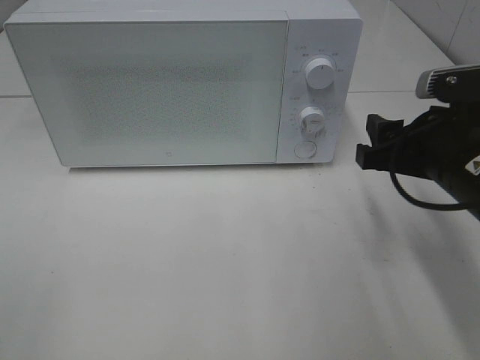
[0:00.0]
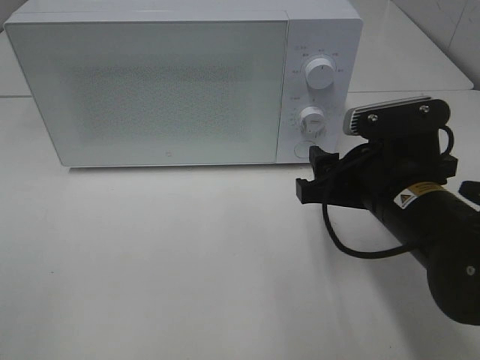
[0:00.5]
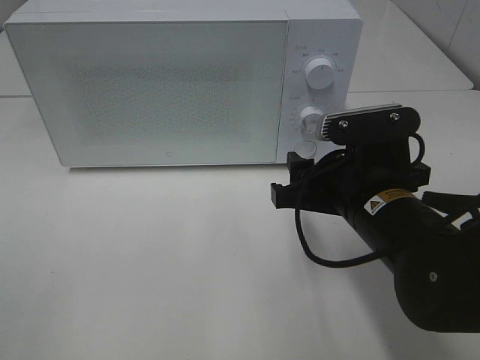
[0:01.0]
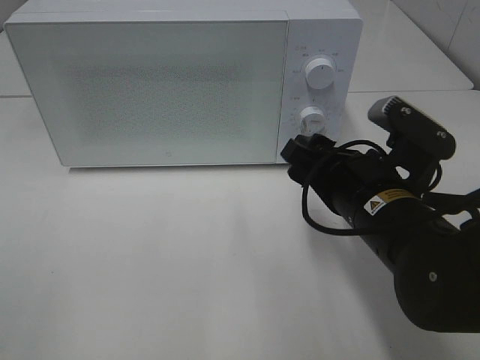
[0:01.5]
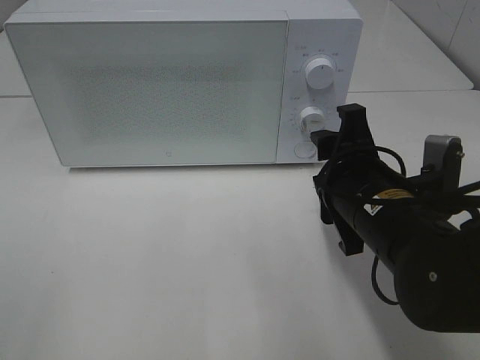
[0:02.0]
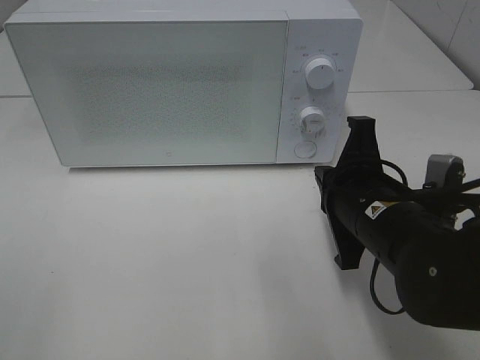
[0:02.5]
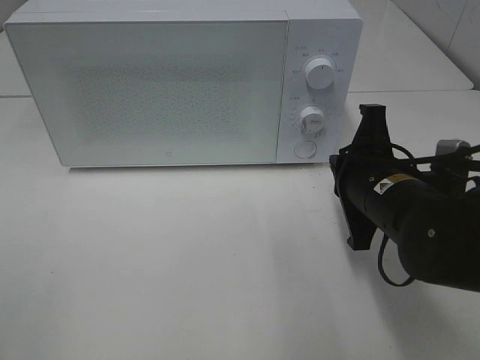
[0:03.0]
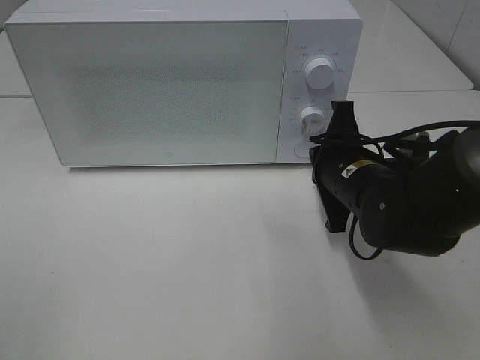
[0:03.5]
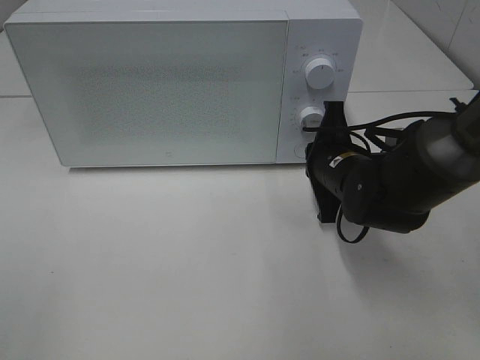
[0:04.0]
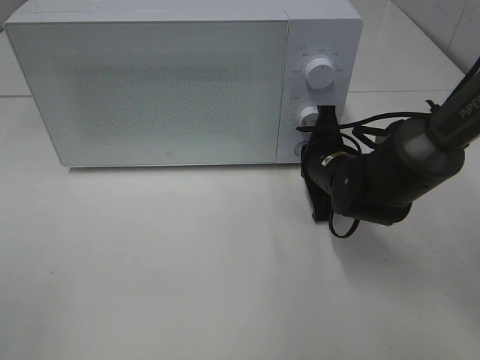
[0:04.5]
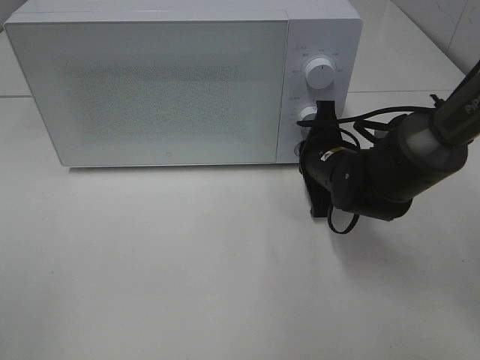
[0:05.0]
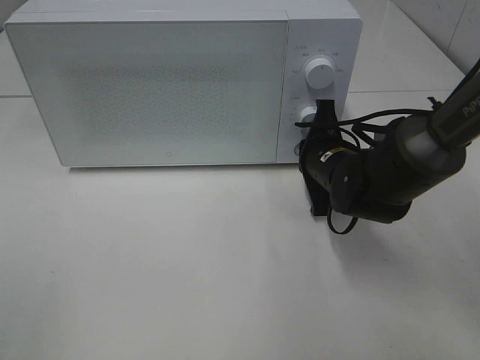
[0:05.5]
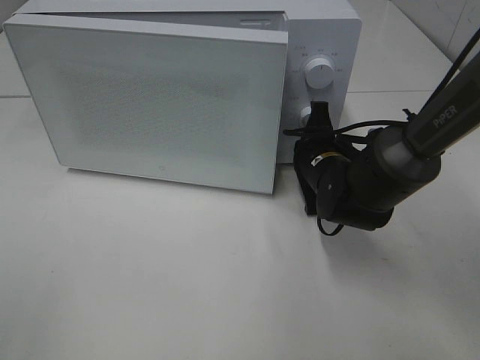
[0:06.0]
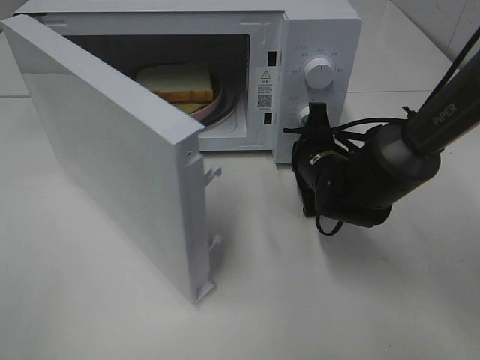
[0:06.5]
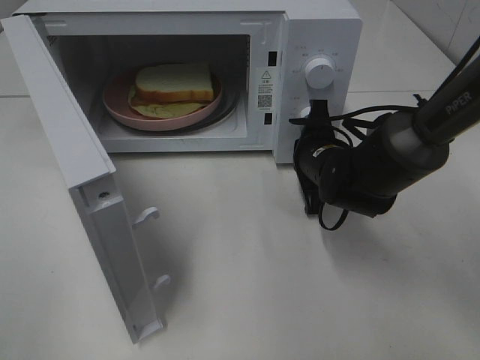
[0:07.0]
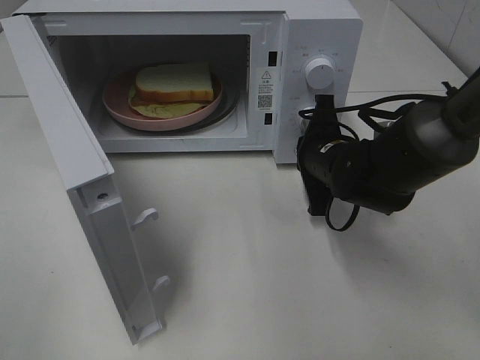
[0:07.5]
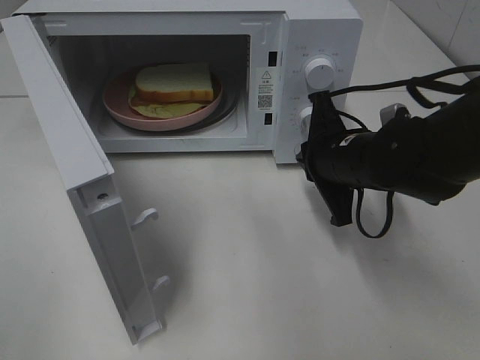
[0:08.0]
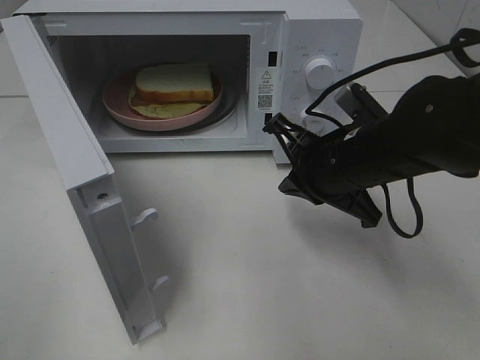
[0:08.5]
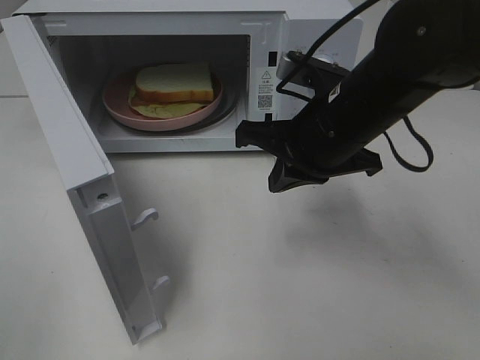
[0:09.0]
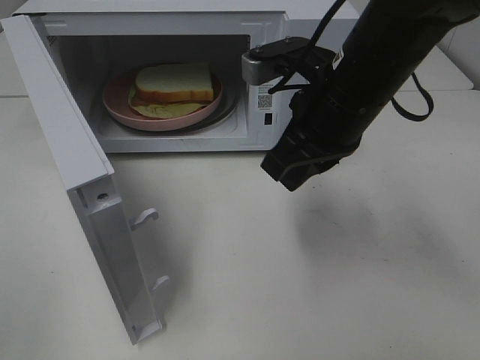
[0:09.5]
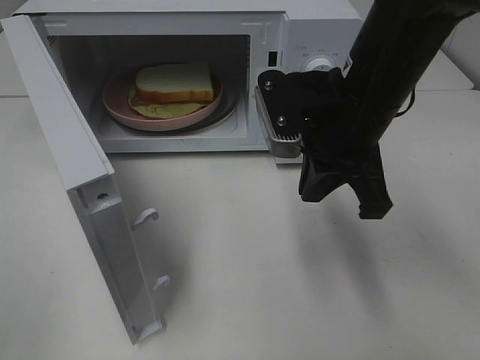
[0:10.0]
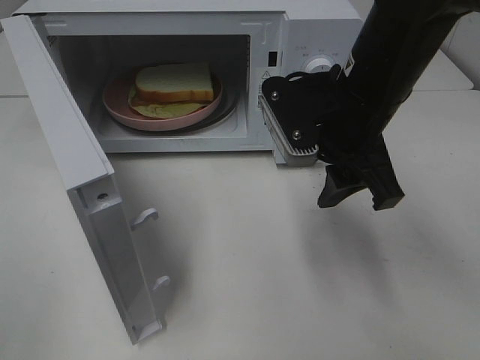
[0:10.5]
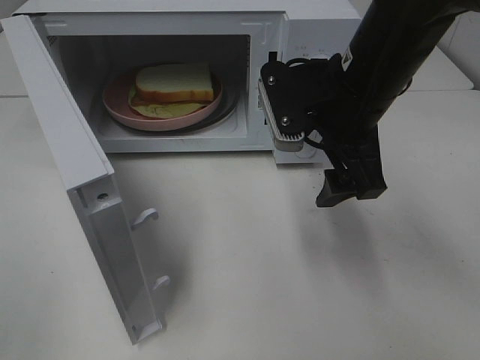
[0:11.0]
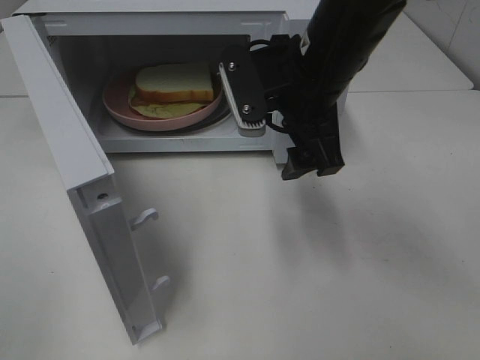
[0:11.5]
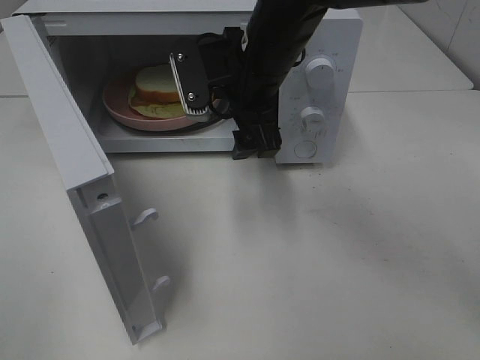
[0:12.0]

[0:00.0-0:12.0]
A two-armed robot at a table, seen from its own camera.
Task of the whole recording: Heat Sandwich.
Step, 0:00.0 to 0:07.5: Right hand: press the switch.
0:00.0 to 0:02.0: The right gripper shifts approximately 10 cm to the left.
0:02.0 to 0:04.0: The right gripper goes some 10 cm forward and downward, and closes.
0:04.0 to 0:06.0: There are only small adjustments of the grippers.
0:06.0 to 0:08.0: The right gripper moves upward and backward, approximately 10 cm.
0:08.0 to 0:10.0: The right gripper heads upward, covering roughly 10 cm.
0:10.0 to 0:12.0: The right gripper goes approximately 10 cm to the left and forward, and opens its fingers.

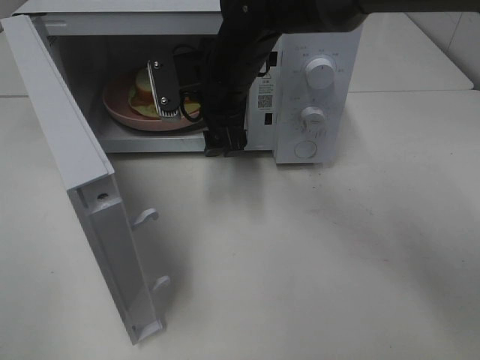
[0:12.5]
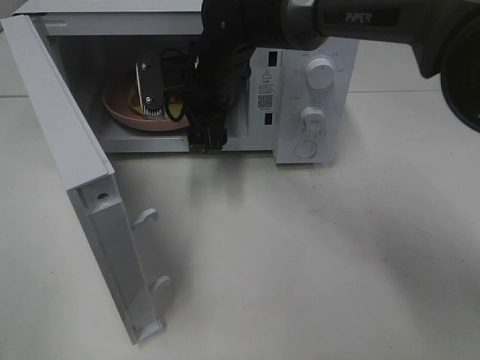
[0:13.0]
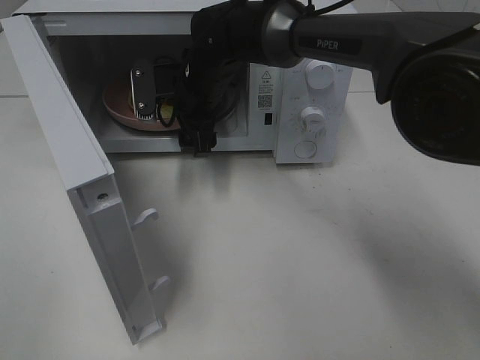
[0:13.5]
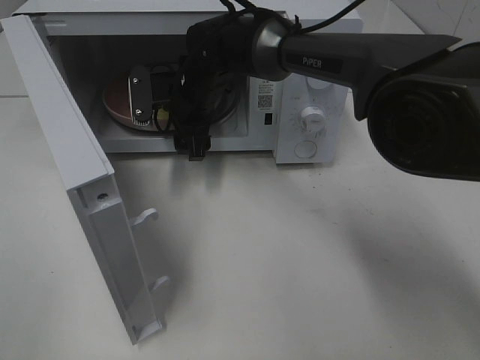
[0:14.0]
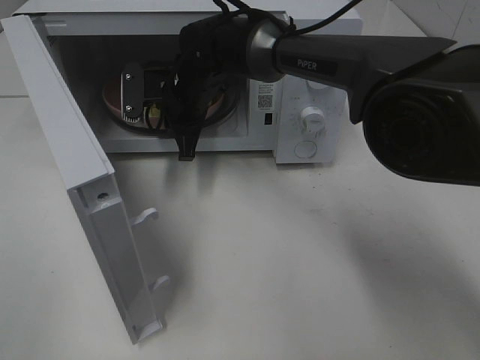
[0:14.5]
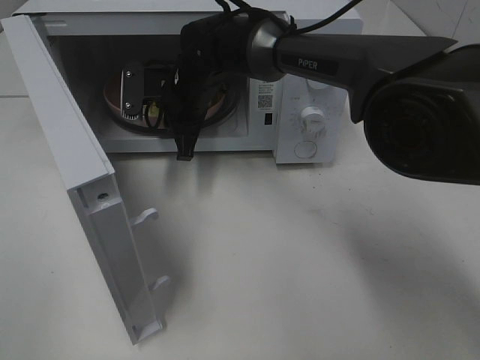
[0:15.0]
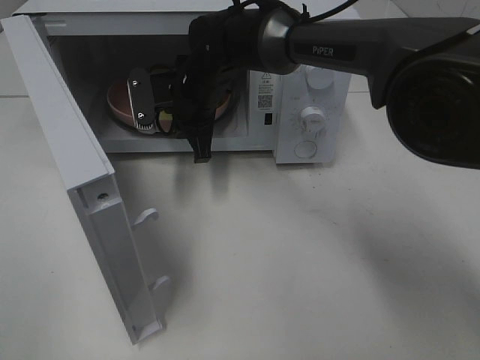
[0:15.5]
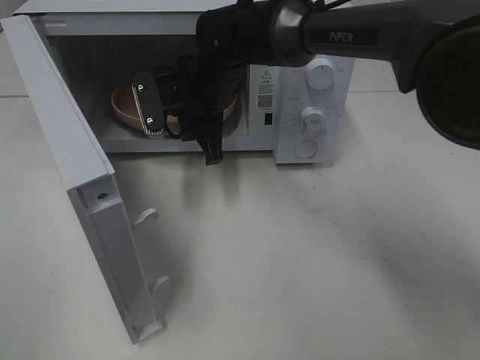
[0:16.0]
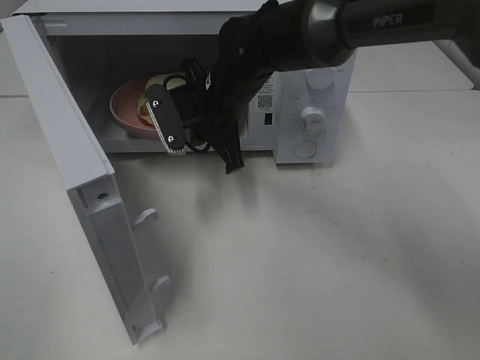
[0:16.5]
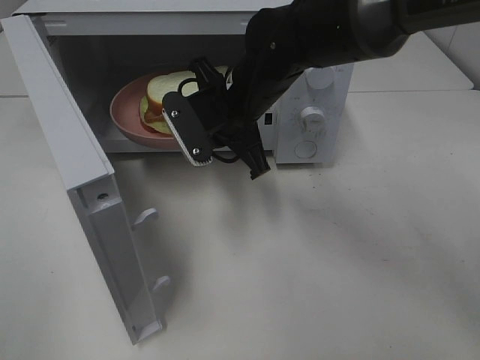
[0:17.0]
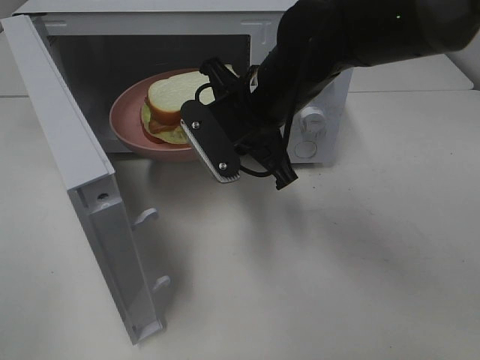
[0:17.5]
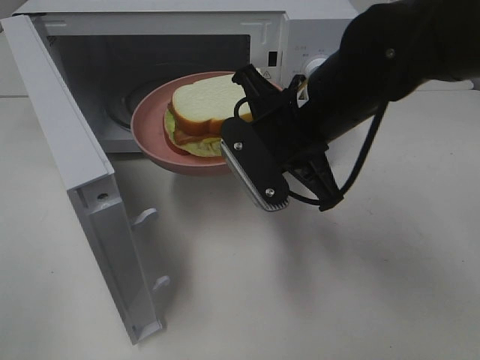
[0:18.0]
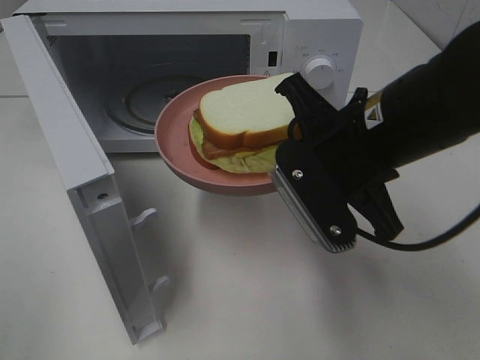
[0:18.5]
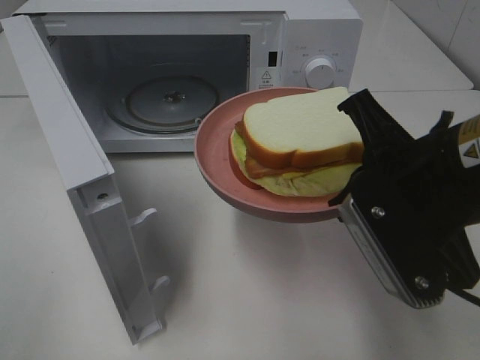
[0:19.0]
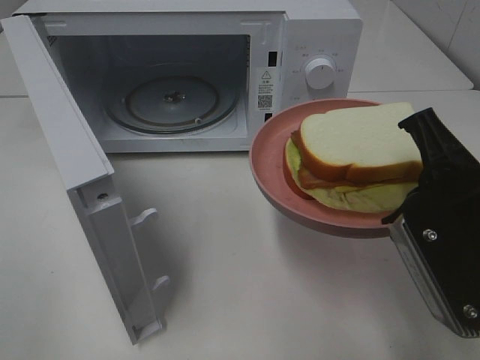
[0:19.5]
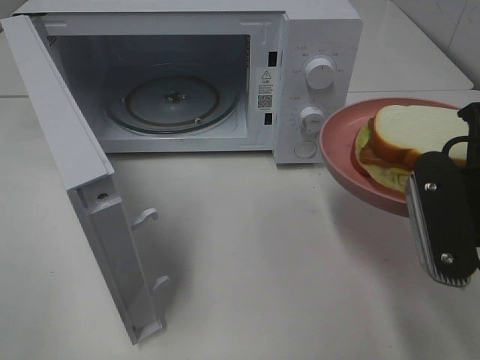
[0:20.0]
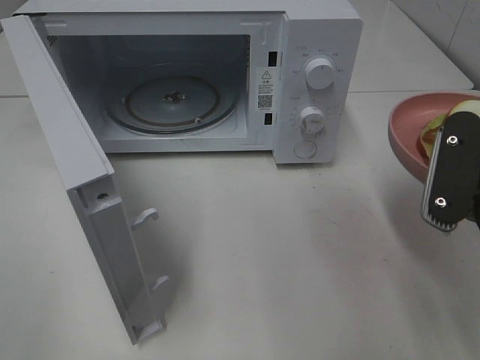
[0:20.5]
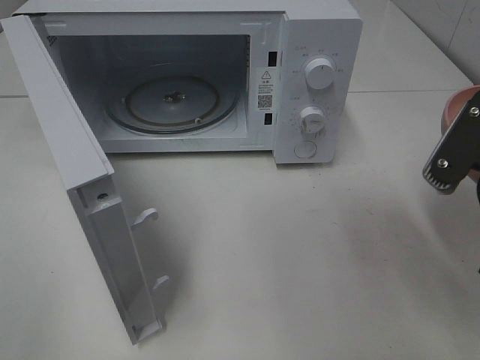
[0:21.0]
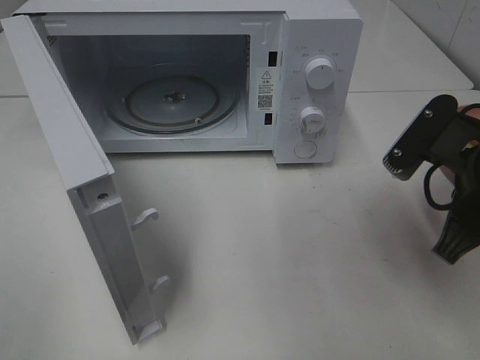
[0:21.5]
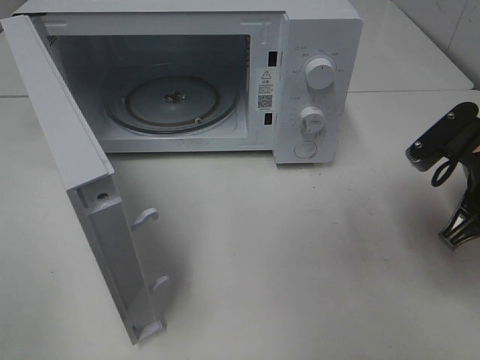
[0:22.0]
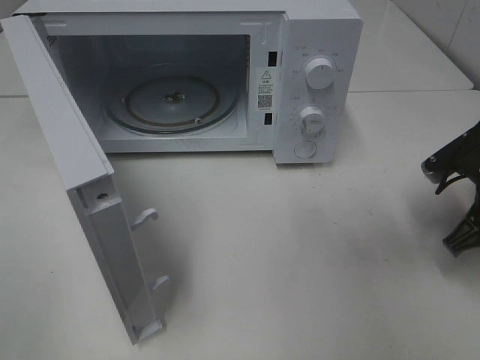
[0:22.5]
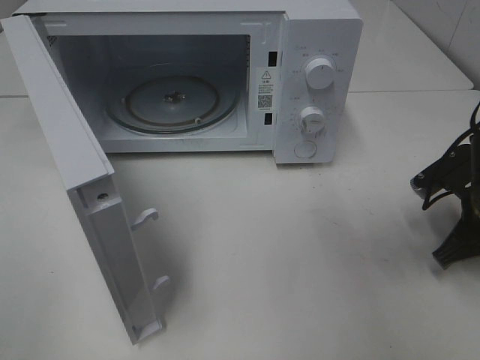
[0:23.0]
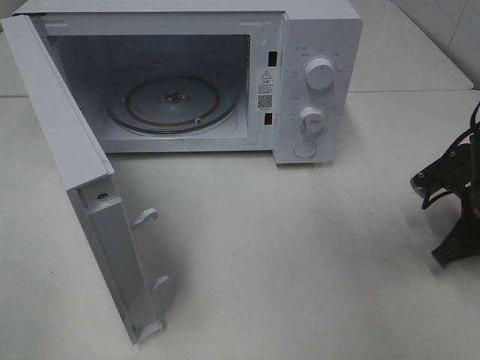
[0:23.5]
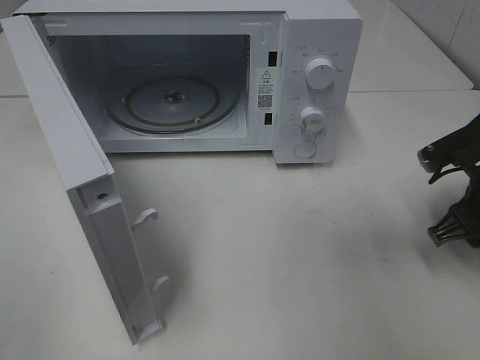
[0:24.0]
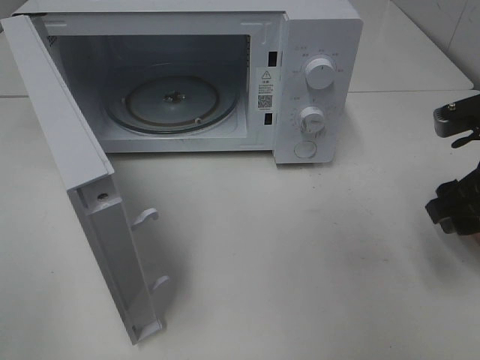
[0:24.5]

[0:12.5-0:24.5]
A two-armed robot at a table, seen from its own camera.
Task of the whole recording: Heat Sandwich.
Step, 0:12.5 to 0:15.0: Right hand: grab the plate with the sandwich.
0:12.5 to 0:14.5: The right gripper goes some 5 cm downward and forward, and closes.
0:14.5 to 0:16.5: The right gripper is displaced backward by some 5 cm.
0:16.5 to 0:18.5: The right gripper travels backward and to the right by some 20 cm.
0:18.5 to 0:20.5: The right gripper goes some 10 cm to the right and backward.
0:20.5 to 0:22.5: The right gripper goes about 15 cm downward, forward and to the right.
0:22.5 to 0:24.5: The right gripper moves upward, roughly 5 cm, and opens its fingers.

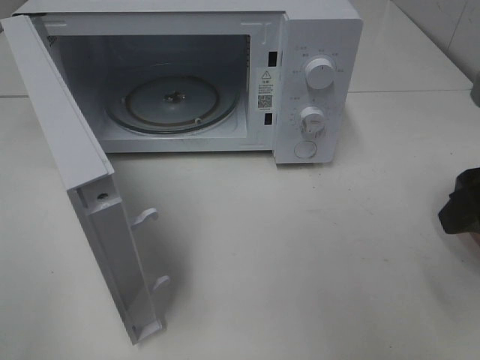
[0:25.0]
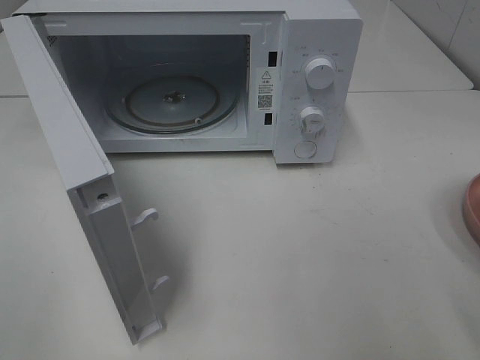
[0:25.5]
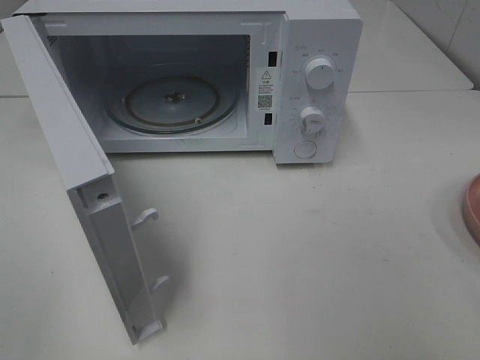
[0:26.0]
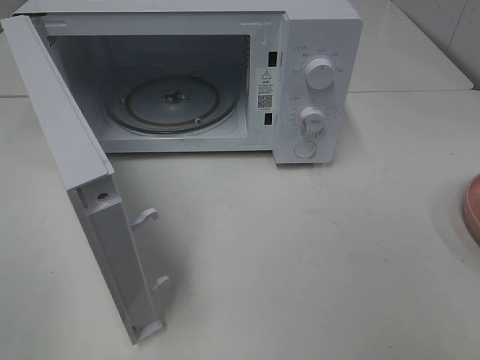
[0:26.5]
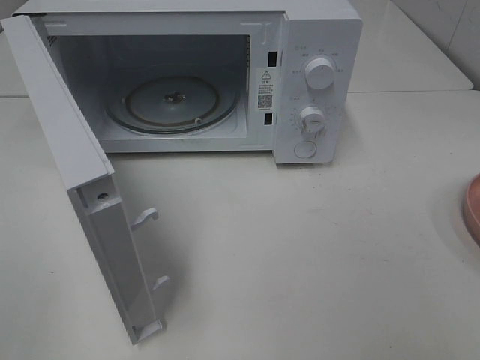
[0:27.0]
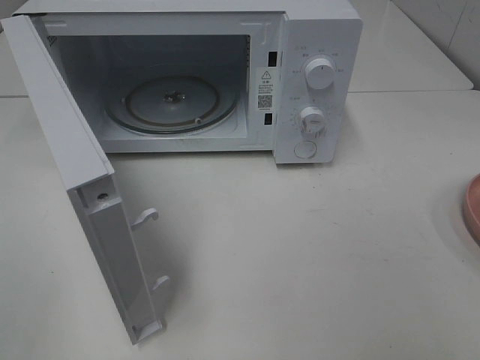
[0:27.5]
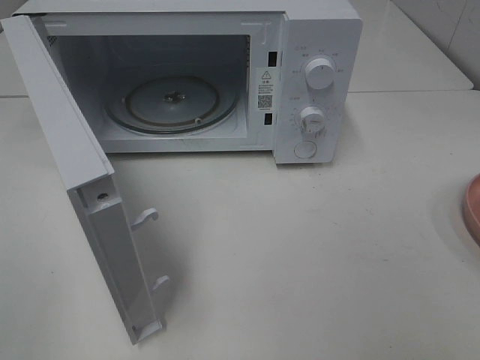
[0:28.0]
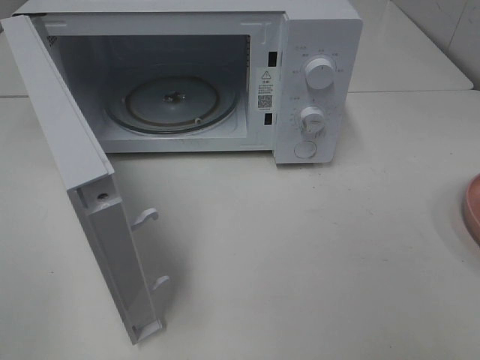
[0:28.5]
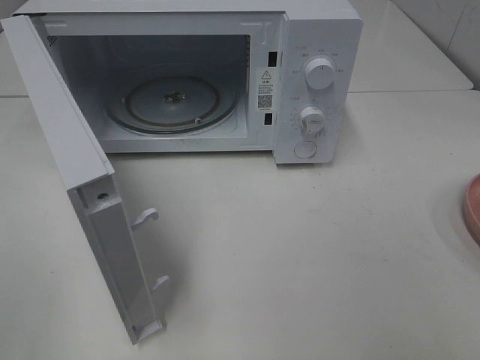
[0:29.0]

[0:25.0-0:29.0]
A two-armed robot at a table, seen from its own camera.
Task of the whole recording: Heat Sandwich.
0:25.0 to 0:27.0: The right gripper travels backward by about 20 cm.
